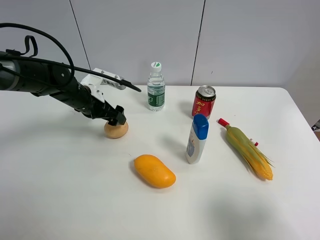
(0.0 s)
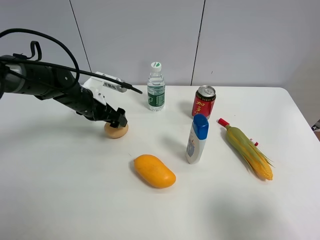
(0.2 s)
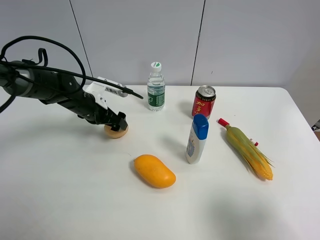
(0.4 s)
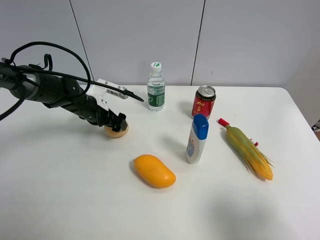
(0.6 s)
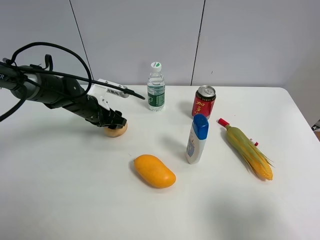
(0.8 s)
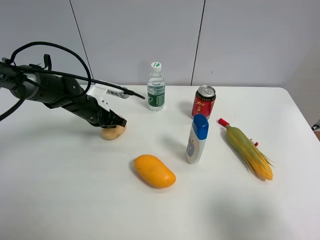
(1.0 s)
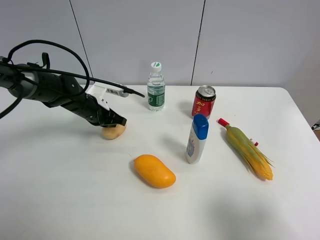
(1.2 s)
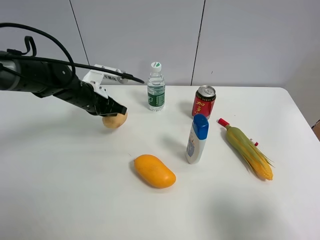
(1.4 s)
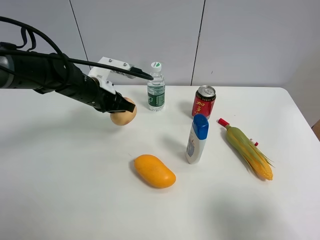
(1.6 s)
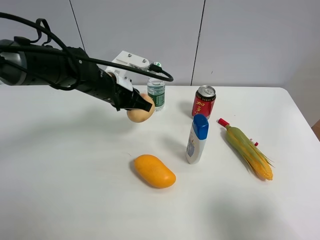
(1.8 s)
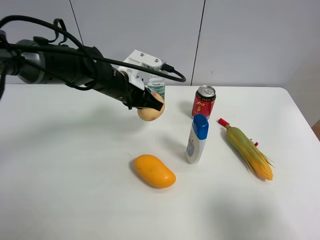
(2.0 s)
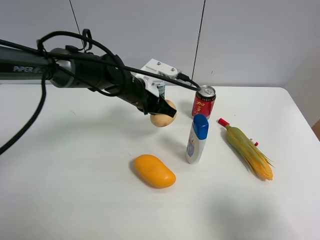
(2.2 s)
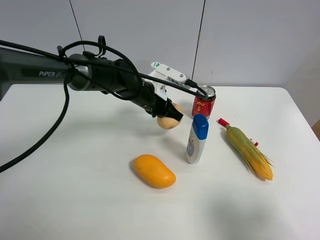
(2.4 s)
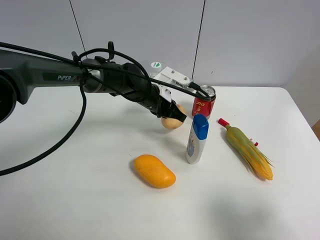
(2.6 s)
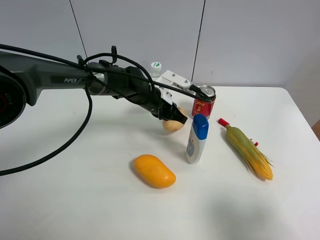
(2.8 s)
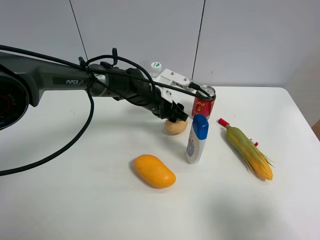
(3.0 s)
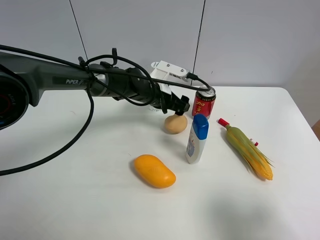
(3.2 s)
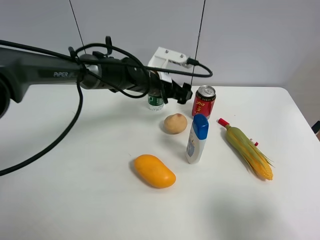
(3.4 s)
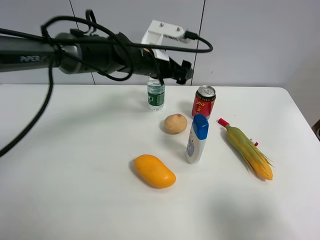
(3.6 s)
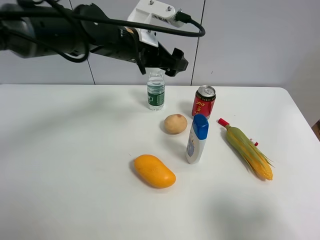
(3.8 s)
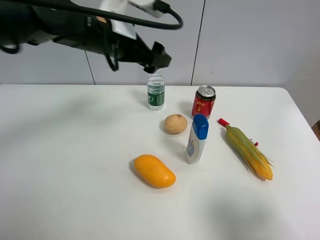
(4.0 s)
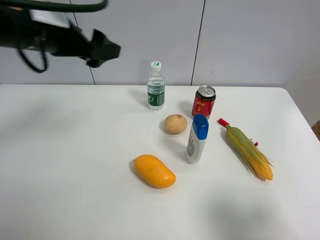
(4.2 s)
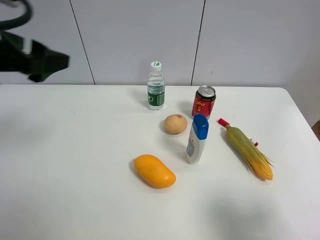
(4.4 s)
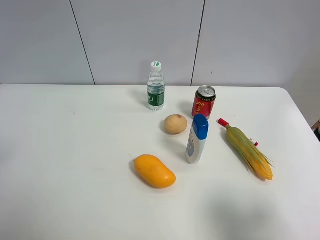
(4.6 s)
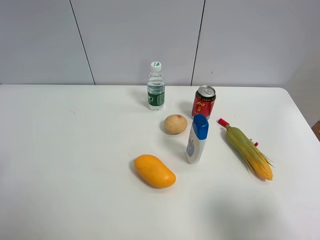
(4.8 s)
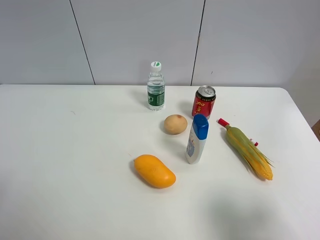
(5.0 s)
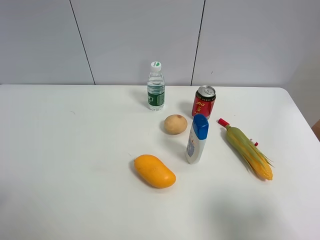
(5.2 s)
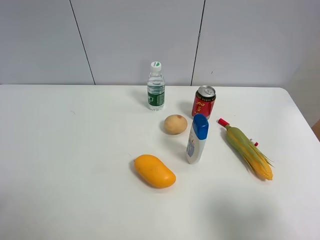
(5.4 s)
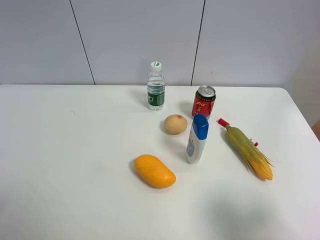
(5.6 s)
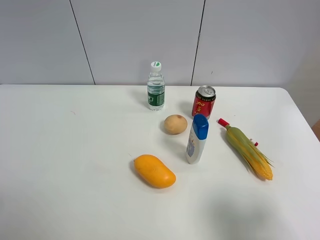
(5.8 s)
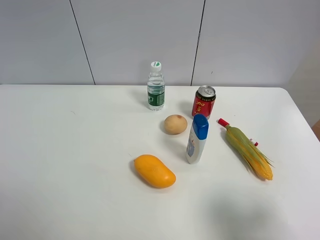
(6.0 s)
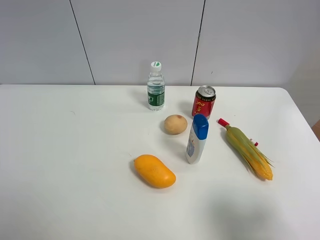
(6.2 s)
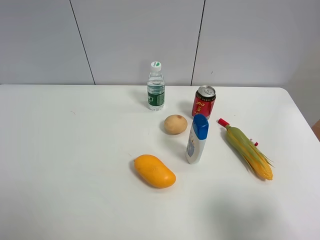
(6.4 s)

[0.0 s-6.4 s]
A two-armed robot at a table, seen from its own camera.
Task of the whole recording: the gripper move the object.
Step, 1.2 to 2.8 s: Place the egg yolk pastry on the table with the left gripper.
0.0 to 1.6 s: The left gripper moves roughly 5 cm, and closes its fingers.
1.6 to 3.2 s: The left gripper shifts about 15 cm to the right, forward and downward, and opens up.
3.2 to 4.8 s: The left gripper shifts approximately 50 cm backward, to the left and upward.
